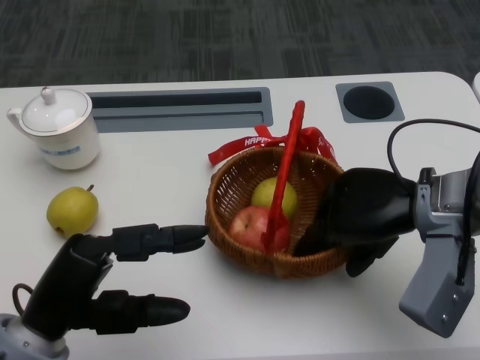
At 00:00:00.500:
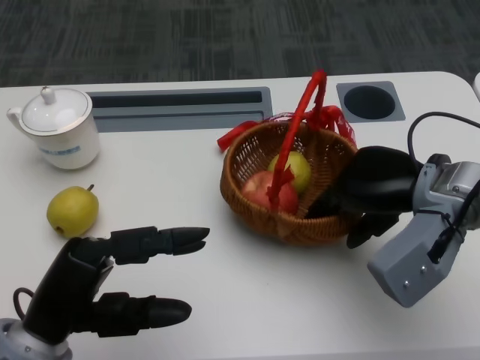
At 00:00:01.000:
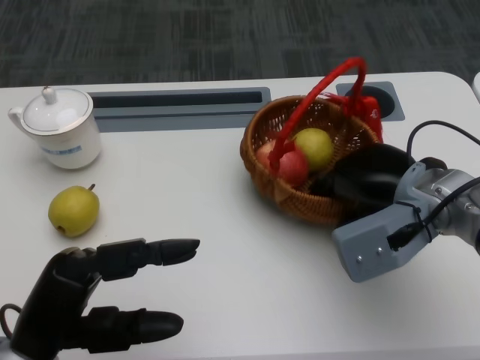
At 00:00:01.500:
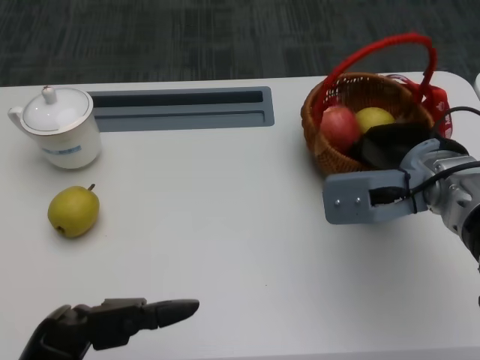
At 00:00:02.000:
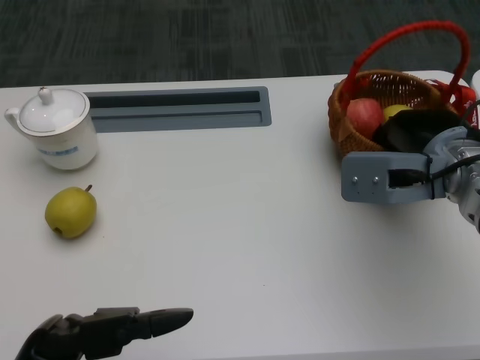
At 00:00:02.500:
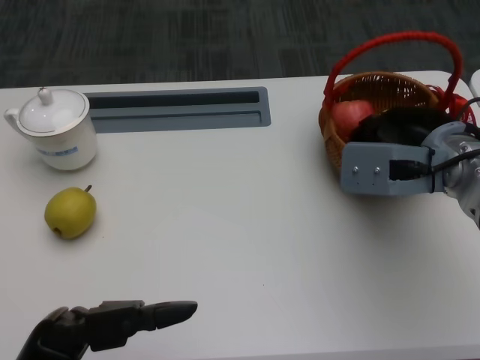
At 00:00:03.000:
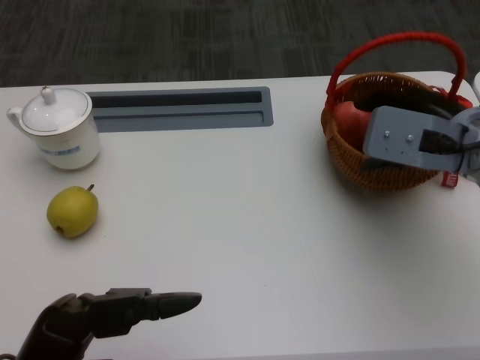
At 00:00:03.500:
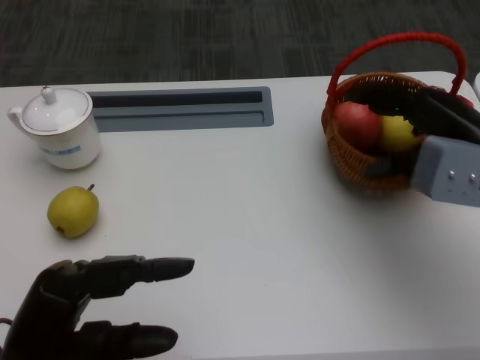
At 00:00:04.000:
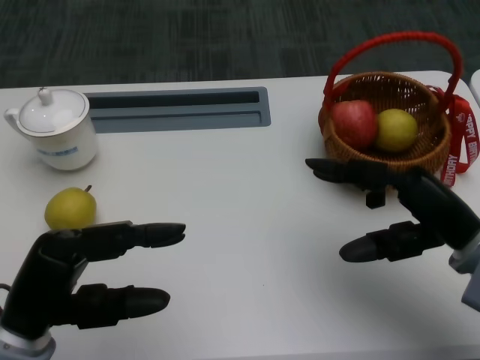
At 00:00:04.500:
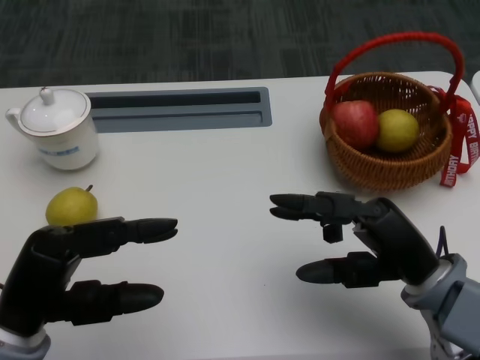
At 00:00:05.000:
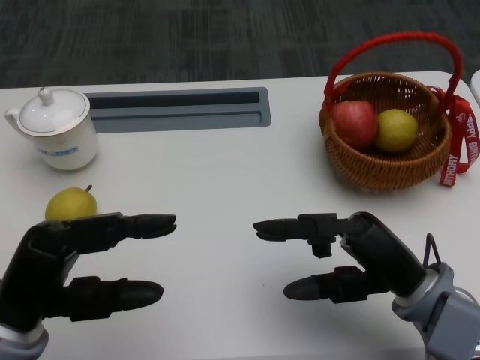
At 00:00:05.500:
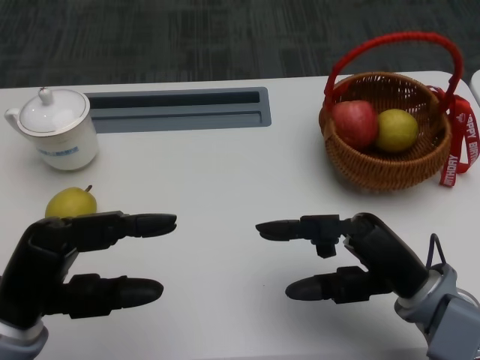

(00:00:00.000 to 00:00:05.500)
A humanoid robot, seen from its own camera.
00:00:00.000 - 00:00:02.000: The left hand travels backward by some 10 cm.
00:00:03.500 - 00:00:05.500: The right hand moves backward, downward and to the left, some 15 cm.

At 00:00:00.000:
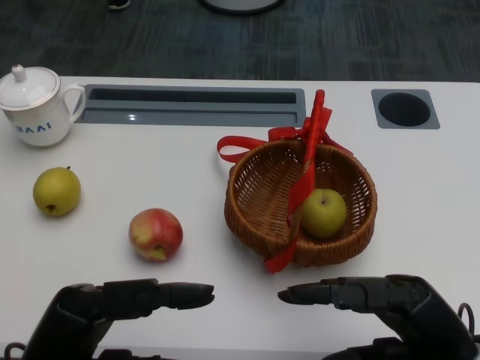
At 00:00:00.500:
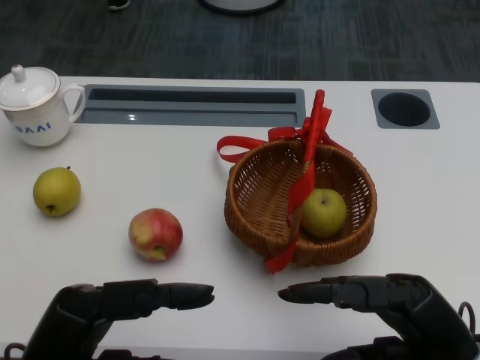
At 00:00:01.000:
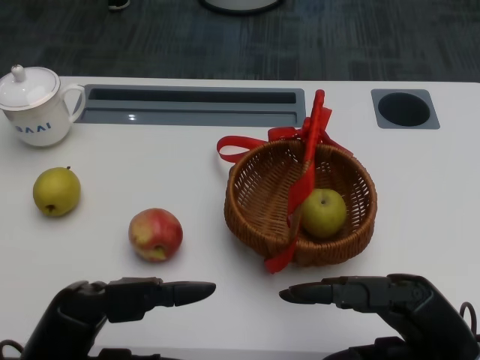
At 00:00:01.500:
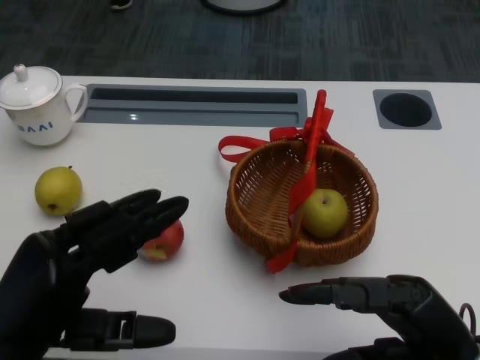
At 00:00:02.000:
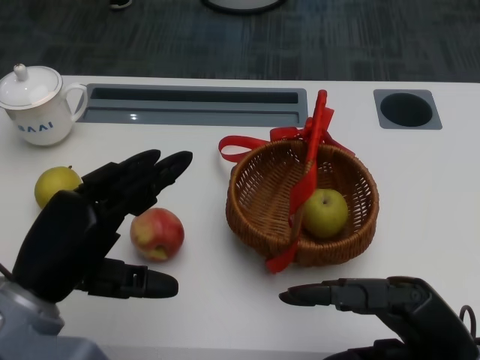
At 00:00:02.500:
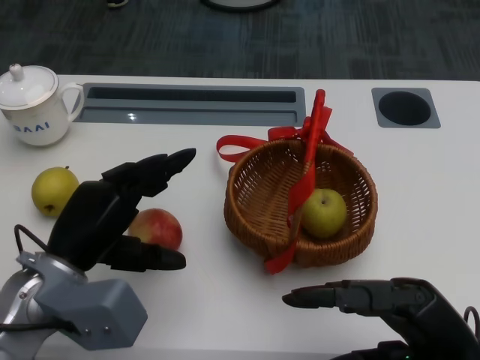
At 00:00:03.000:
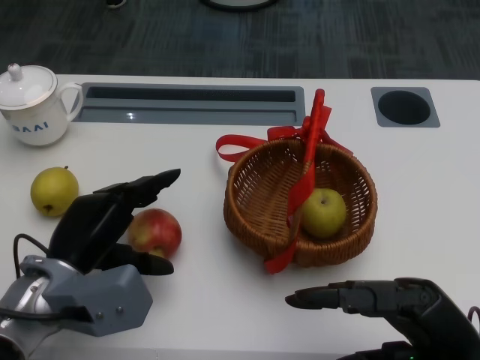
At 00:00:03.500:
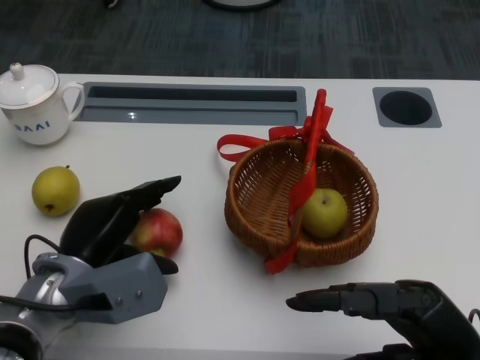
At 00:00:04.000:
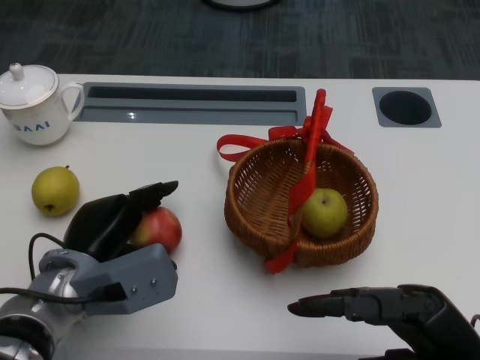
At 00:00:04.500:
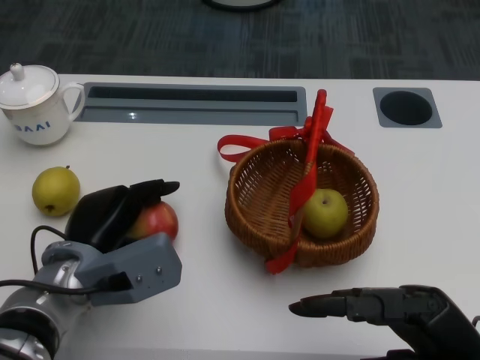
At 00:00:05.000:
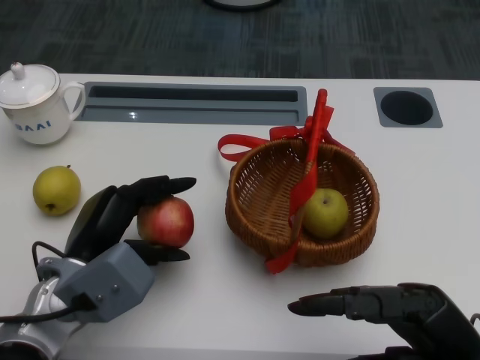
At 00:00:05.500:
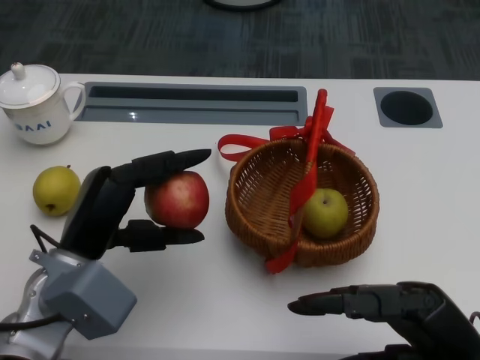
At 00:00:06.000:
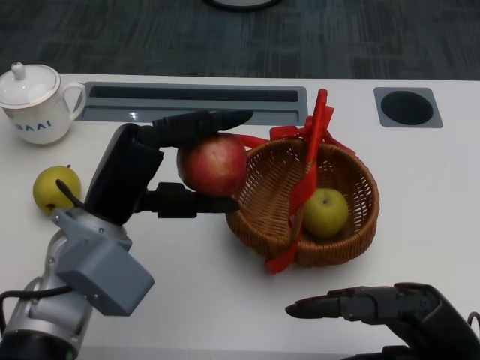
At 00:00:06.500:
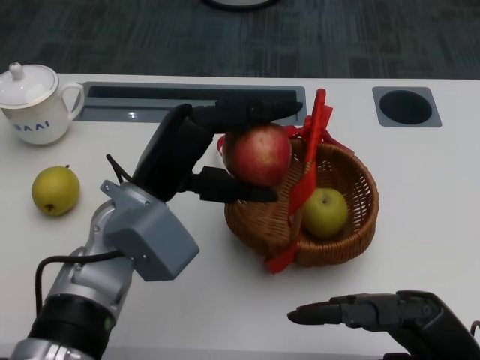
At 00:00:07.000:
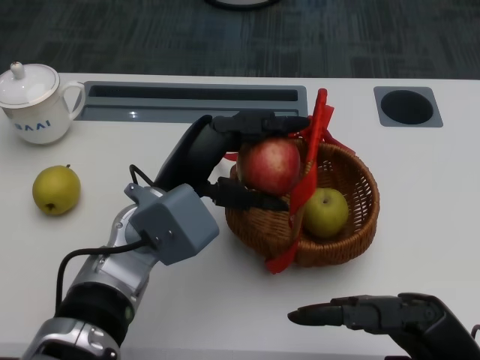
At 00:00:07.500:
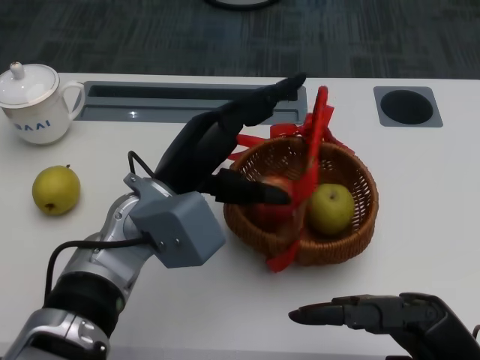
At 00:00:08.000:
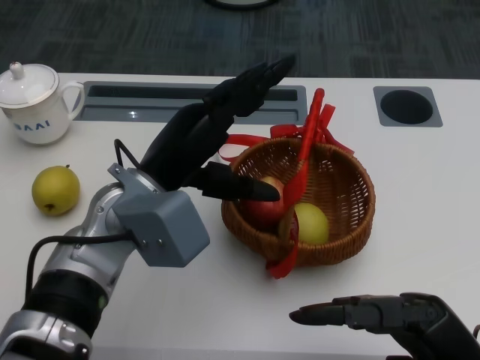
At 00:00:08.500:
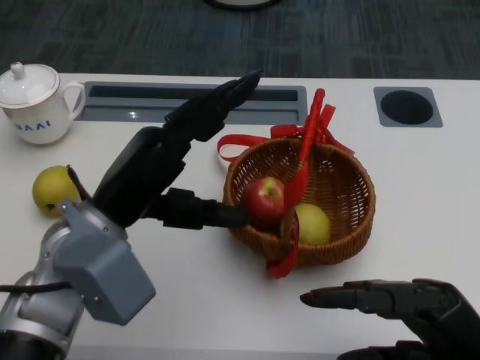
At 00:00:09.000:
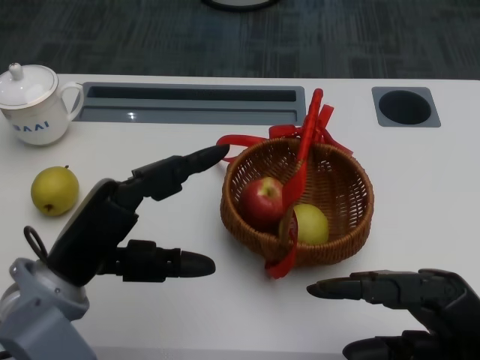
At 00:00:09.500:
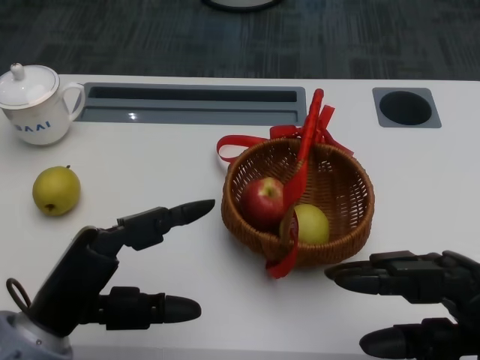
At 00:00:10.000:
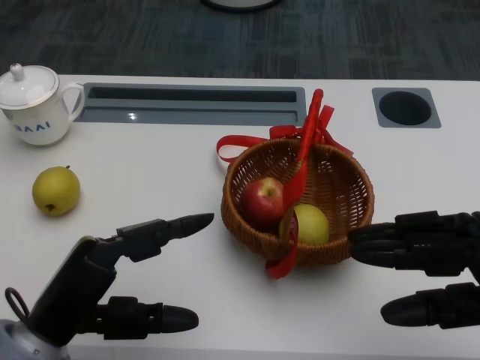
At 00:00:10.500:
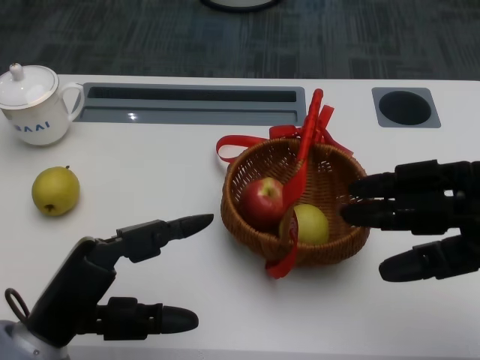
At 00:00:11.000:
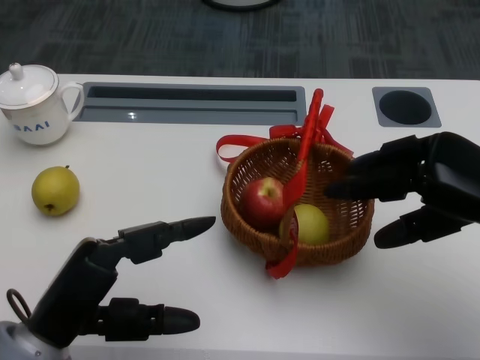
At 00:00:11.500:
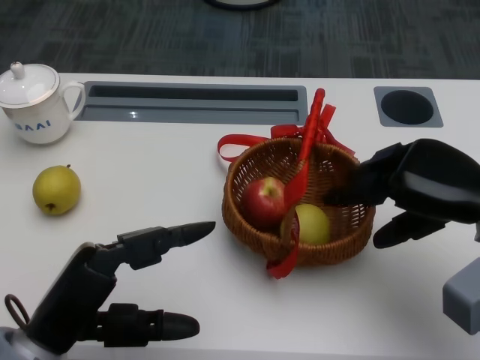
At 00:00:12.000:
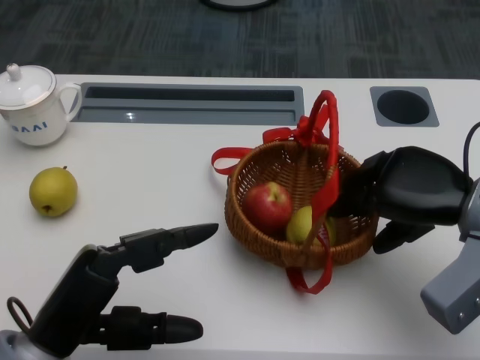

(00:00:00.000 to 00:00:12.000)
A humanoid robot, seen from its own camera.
Step, 00:00:01.000 - 00:00:03.500: Grasp the apple with the left gripper.
Step, 00:00:04.000 - 00:00:06.000: Place the apple into the basket with the left gripper.
00:00:02.000 - 00:00:04.000: The left hand heads downward and forward, covering about 10 cm.
00:00:04.000 - 00:00:06.000: The left hand moves upward, some 10 cm.
00:00:06.000 - 00:00:08.000: The left hand ends up about 5 cm from where it was.
00:00:08.000 - 00:00:10.000: The right hand travels to the right by about 5 cm. Meanwhile the left hand shifts approximately 15 cm backward, to the left and downward.
00:00:10.000 - 00:00:12.000: The right hand heads forward, covering roughly 10 cm.

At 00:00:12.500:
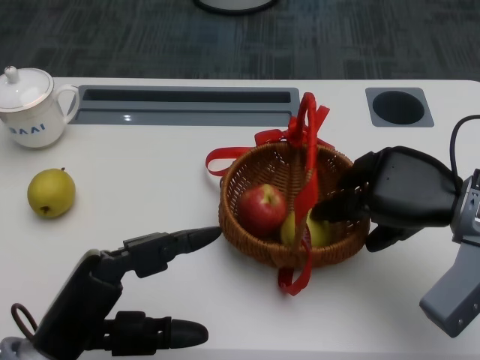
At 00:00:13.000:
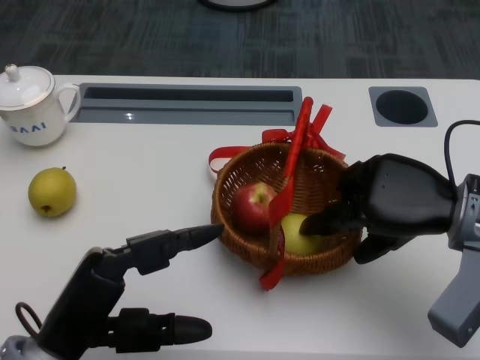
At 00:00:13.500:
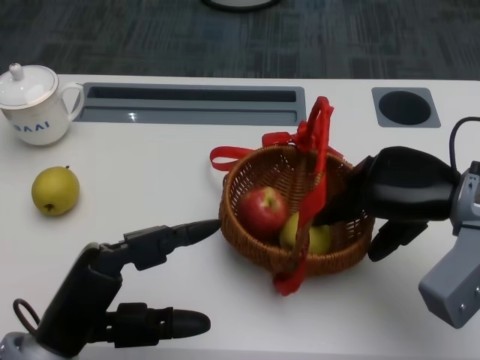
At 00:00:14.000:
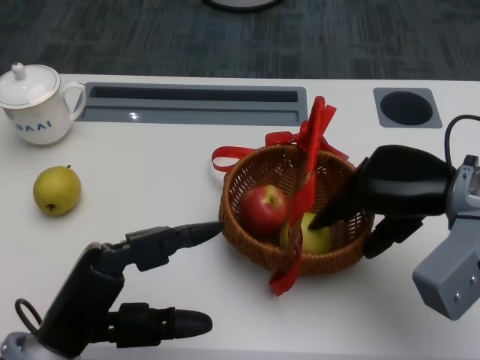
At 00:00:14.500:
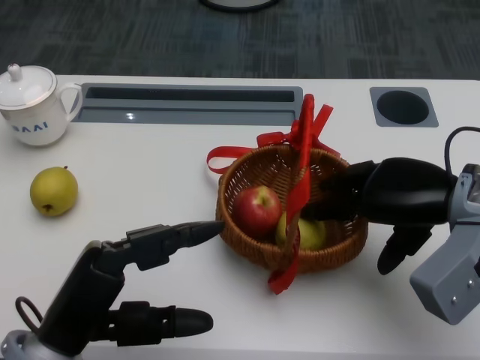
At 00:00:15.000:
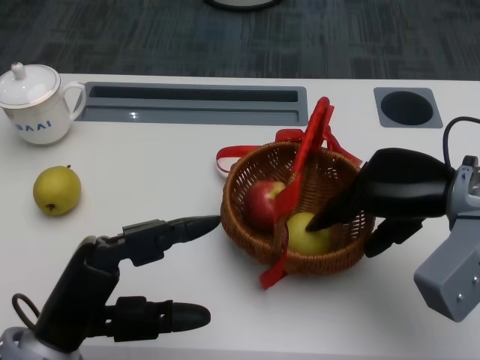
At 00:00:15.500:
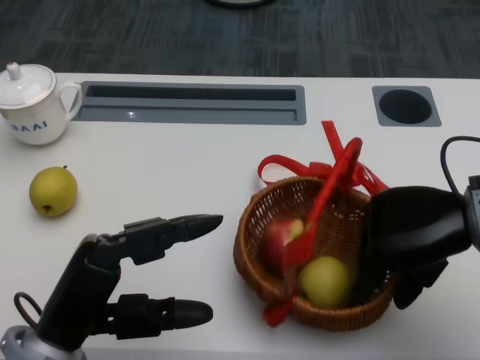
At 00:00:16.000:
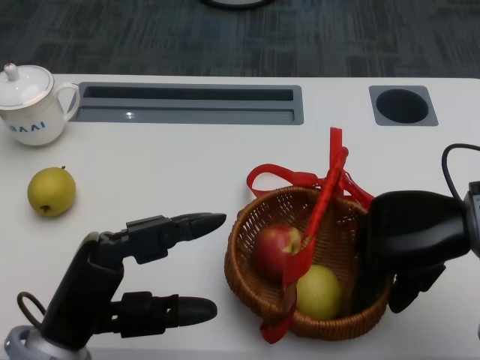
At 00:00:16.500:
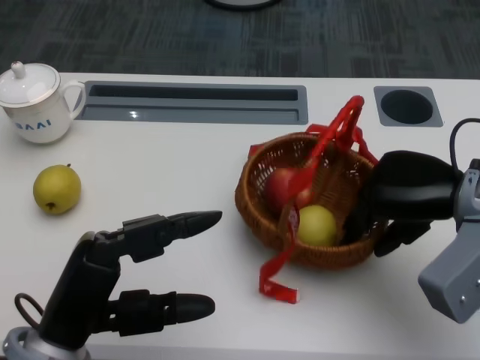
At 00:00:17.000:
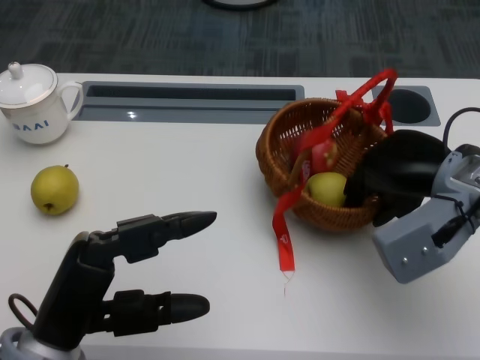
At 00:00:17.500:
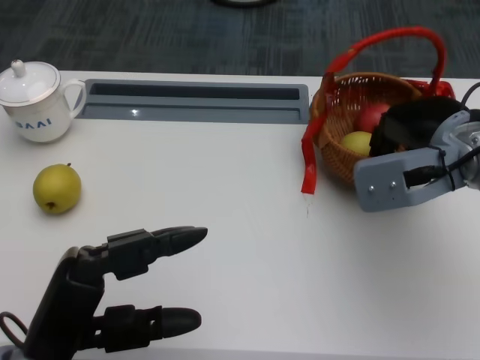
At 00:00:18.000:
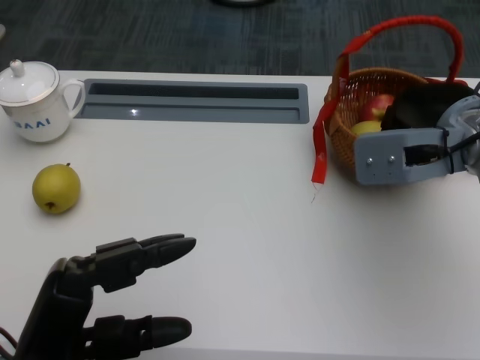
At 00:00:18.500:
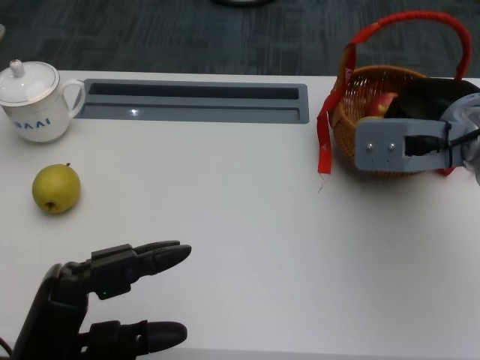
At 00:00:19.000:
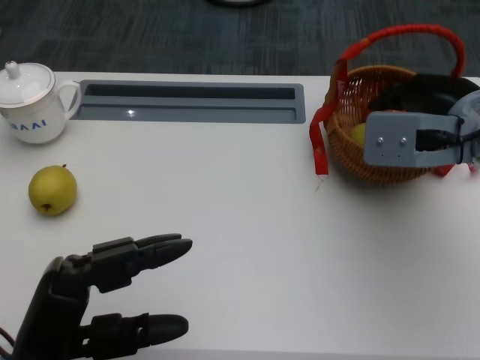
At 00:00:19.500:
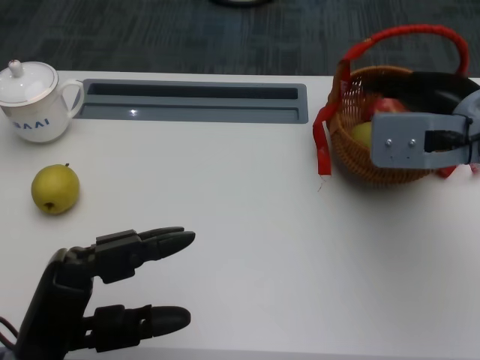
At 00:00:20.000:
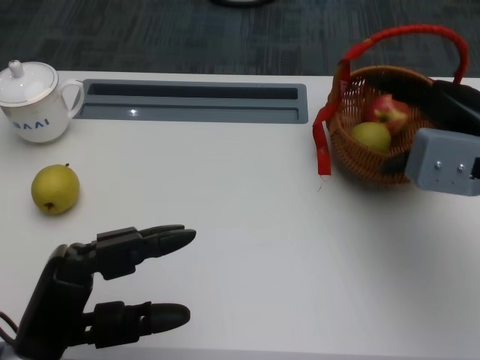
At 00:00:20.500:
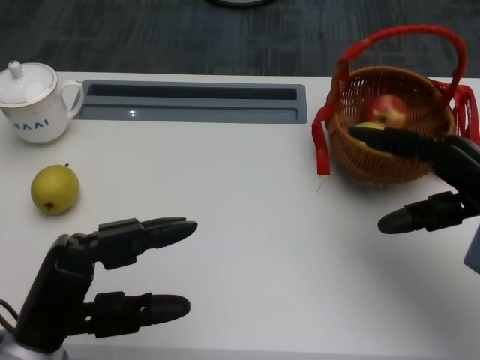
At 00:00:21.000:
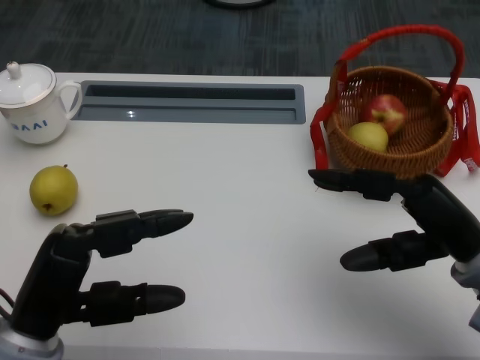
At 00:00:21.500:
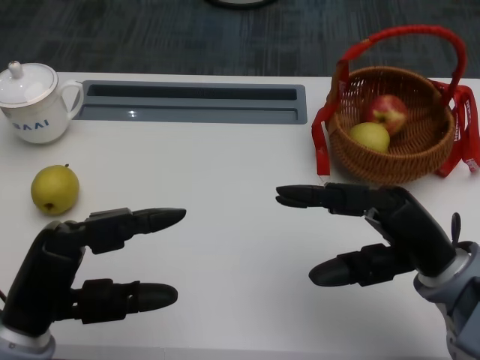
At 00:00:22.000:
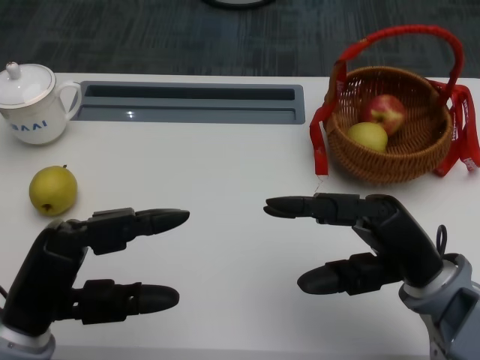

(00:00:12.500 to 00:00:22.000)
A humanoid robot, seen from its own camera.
Step, 00:00:13.000 - 00:00:15.000: Move the basket to the front of the table with the right gripper.
00:00:16.500 - 00:00:18.000: The right hand ends up approximately 5 cm from where it was.
00:00:20.000 - 00:00:22.000: The right hand is displaced backward, downward and to the left by some 15 cm.
